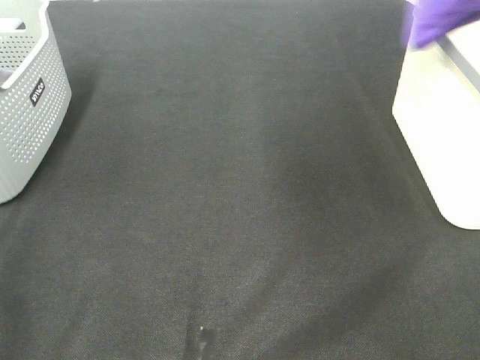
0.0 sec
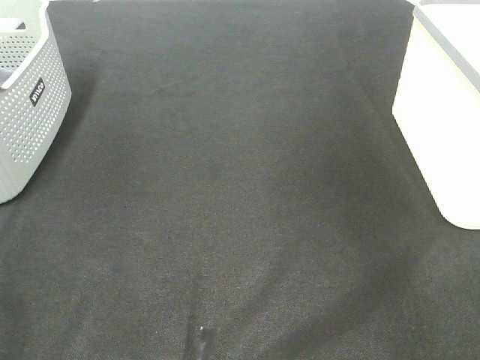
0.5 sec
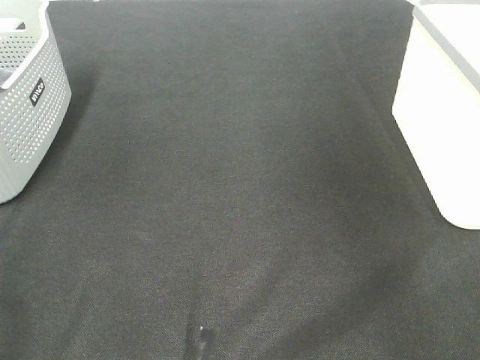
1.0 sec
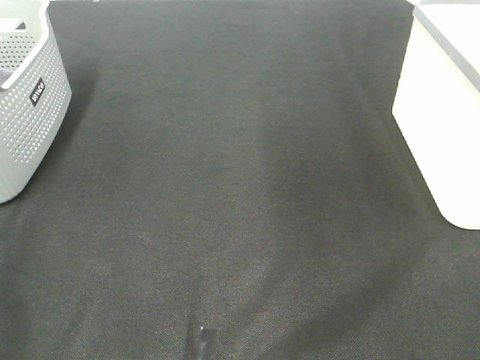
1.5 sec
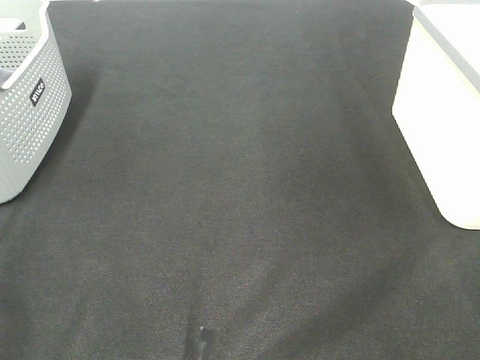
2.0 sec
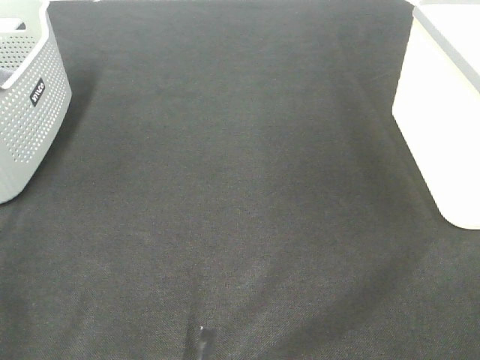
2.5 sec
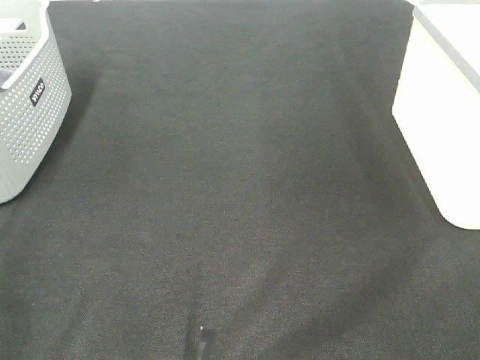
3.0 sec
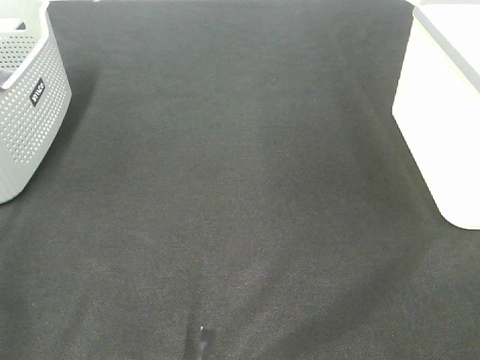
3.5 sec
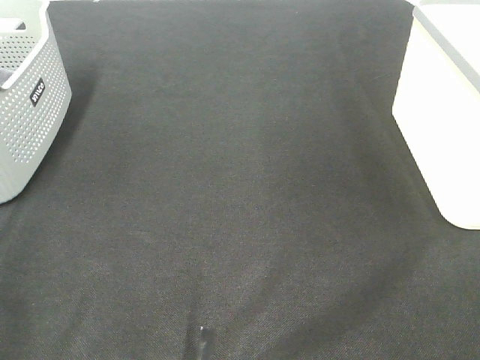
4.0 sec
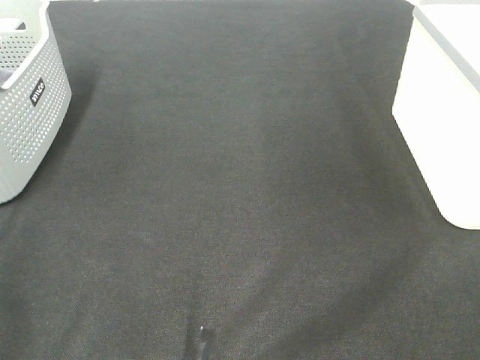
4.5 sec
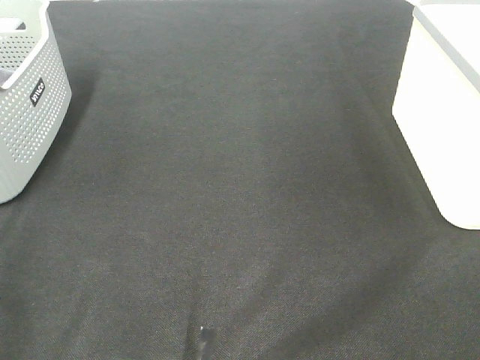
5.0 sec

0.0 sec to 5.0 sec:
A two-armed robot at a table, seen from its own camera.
0.0 sec to 2.5 sec: The right gripper shifts approximately 40 cm backward, and opens its fingers.
2.5 sec to 5.0 sec: Neither gripper changes place.

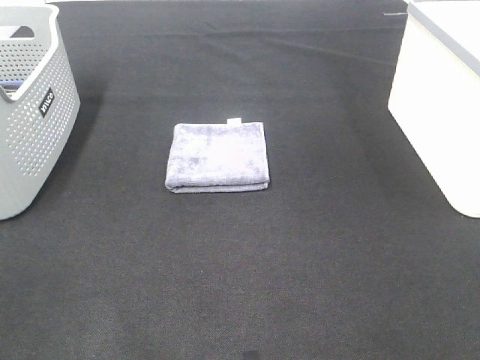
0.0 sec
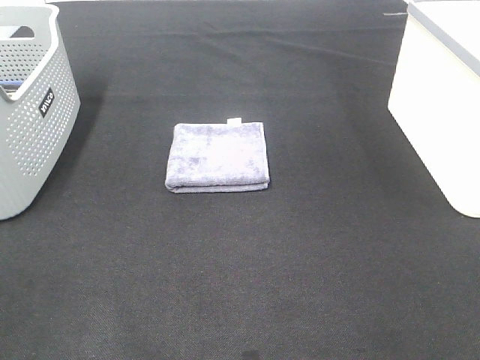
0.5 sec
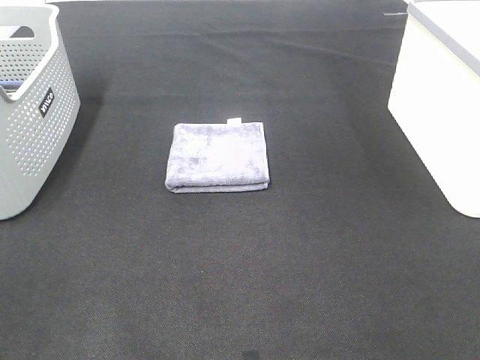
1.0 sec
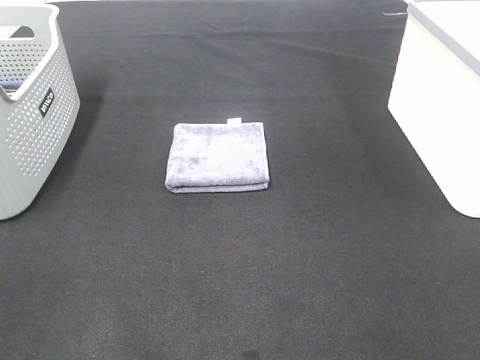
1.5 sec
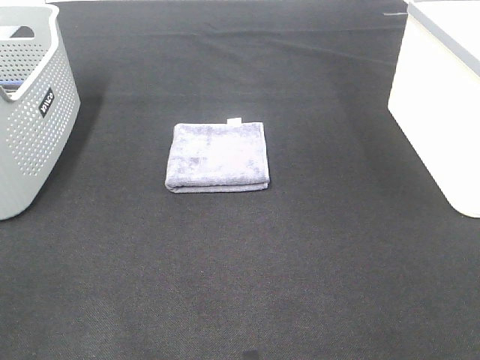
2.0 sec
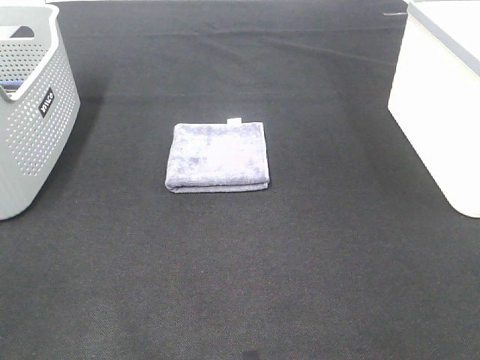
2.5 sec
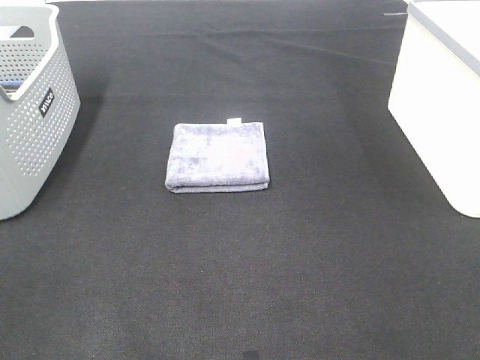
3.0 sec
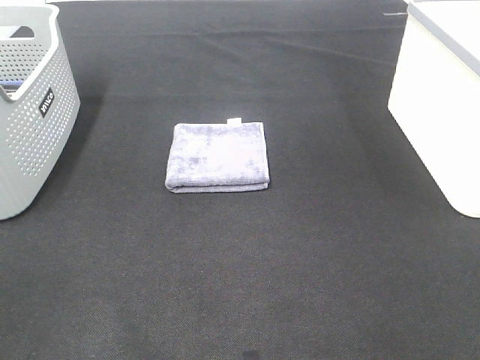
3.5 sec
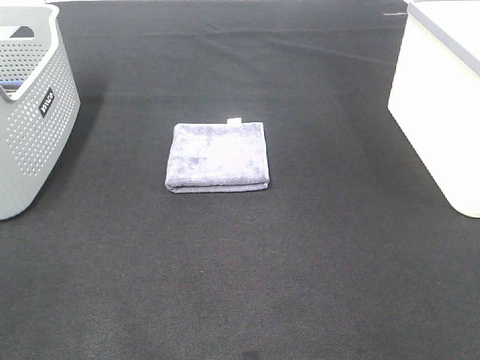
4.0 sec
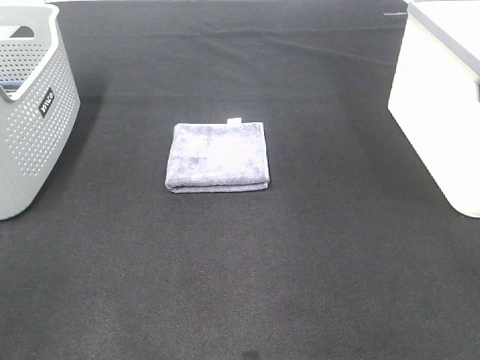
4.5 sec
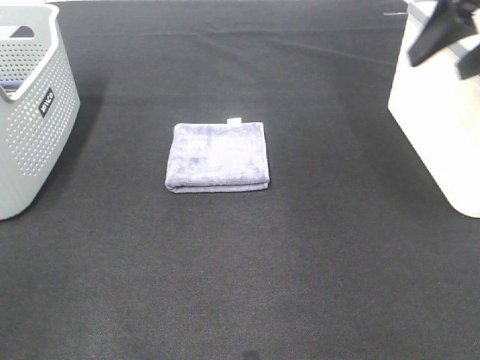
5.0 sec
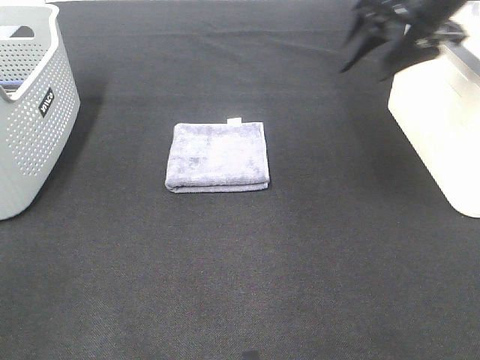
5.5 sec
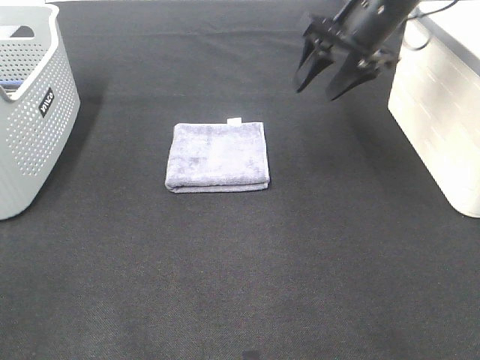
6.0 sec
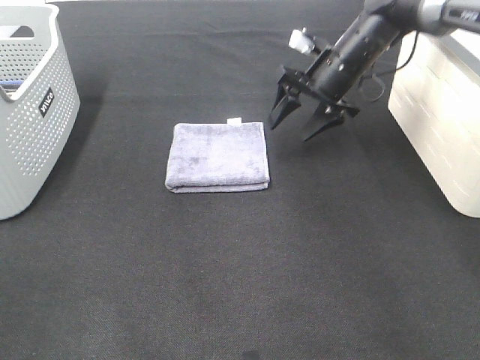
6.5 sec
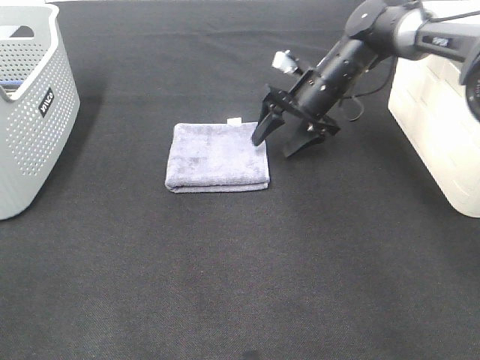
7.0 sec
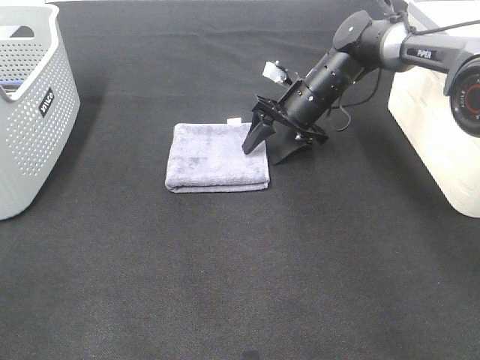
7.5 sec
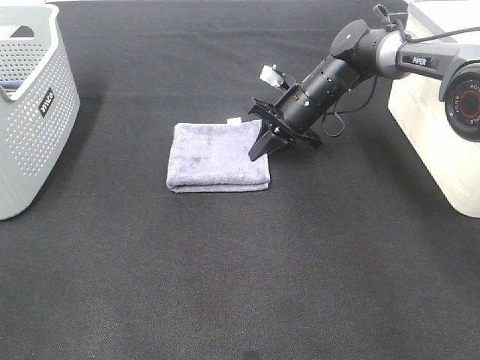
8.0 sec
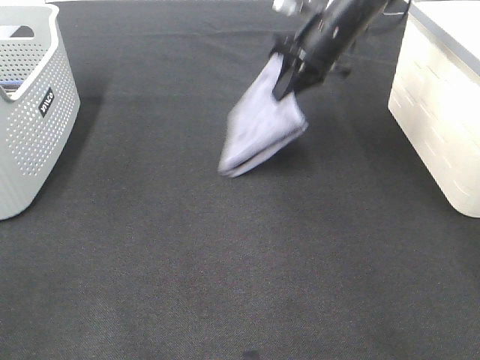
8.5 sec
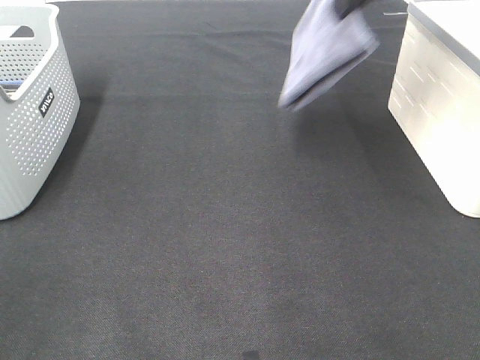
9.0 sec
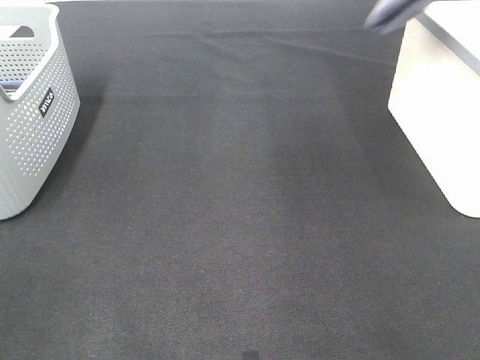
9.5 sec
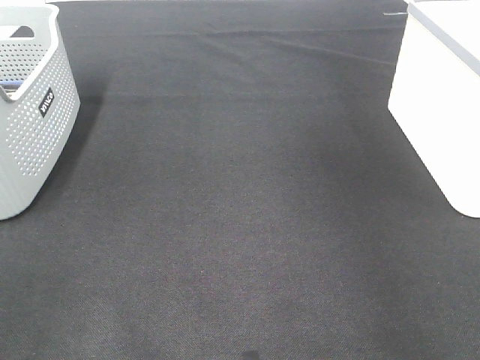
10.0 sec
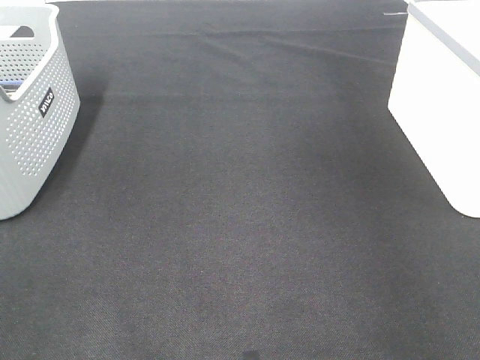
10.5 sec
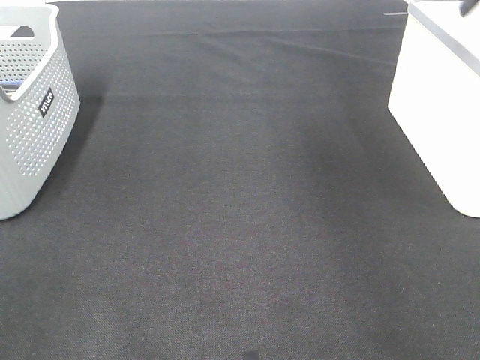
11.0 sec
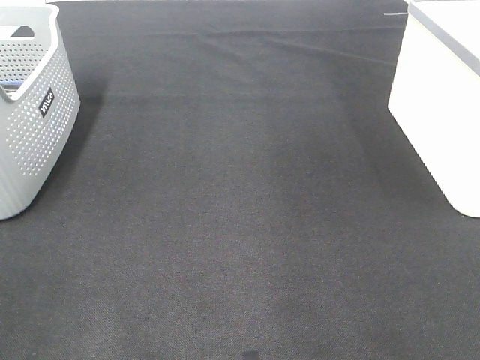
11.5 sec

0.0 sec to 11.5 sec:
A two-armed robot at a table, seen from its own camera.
Step, 0.0 sec to 8.0 sec: Right hand: grab the folded grey towel.
Step, 8.5 sec to 10.5 sec: Right hand: place the grey towel in right basket.
0.0 sec to 2.0 sec: Neither gripper changes place.
4.0 sec to 6.0 sec: The right gripper moves forward, approximately 40 cm.
6.0 sec to 7.5 sec: The right gripper travels downward by some 15 cm.
7.5 sec to 9.5 sec: The right gripper moves upward and to the right, roughly 40 cm, and closes its fingers.
9.5 sec to 11.5 sec: The right gripper goes roughly 5 cm backward, travels to the right and back again, roughly 10 cm each way, and opens.

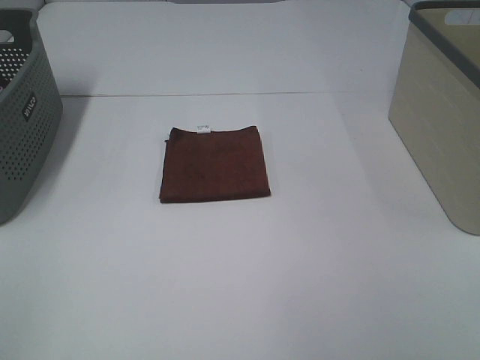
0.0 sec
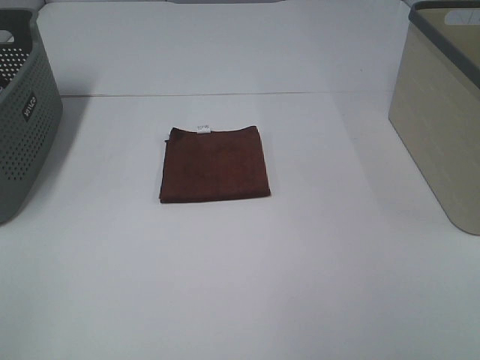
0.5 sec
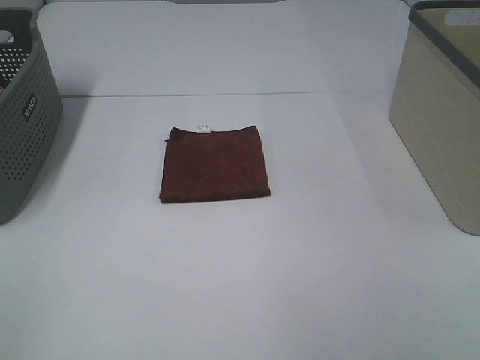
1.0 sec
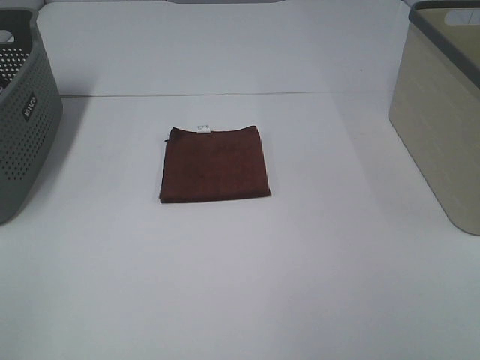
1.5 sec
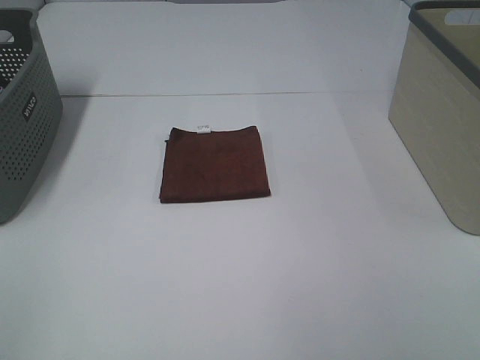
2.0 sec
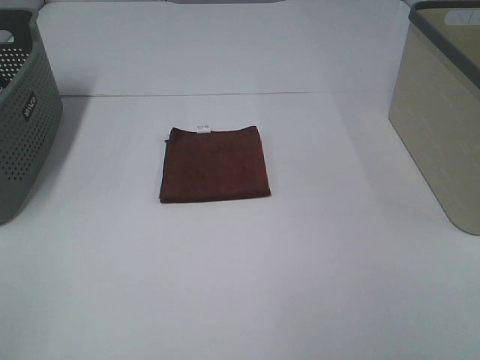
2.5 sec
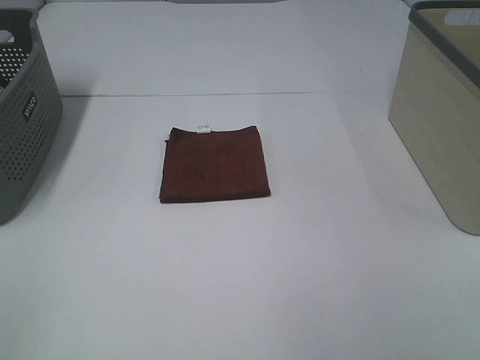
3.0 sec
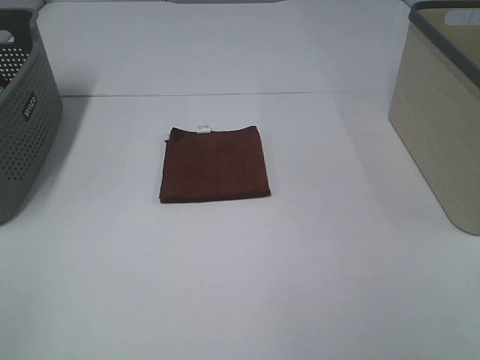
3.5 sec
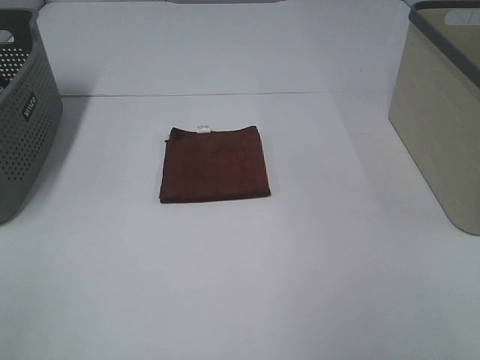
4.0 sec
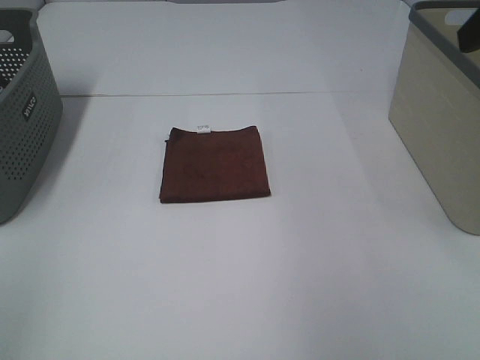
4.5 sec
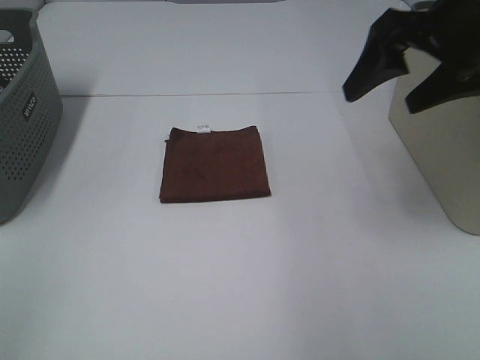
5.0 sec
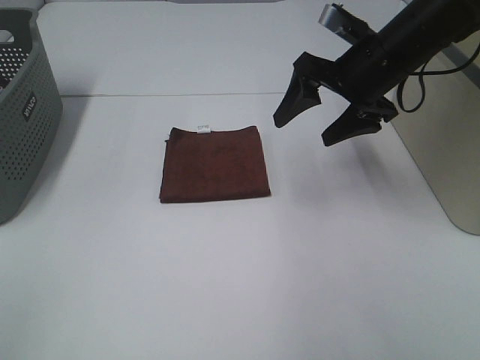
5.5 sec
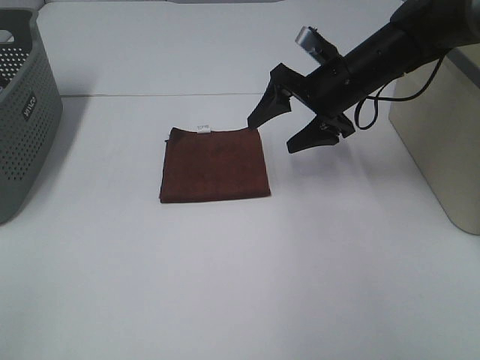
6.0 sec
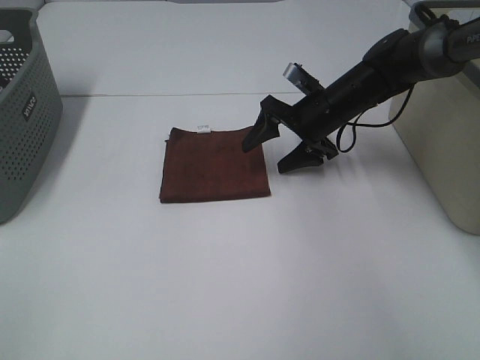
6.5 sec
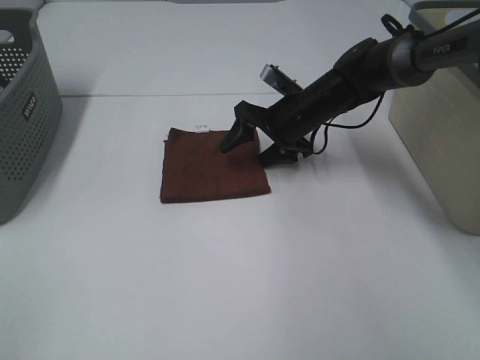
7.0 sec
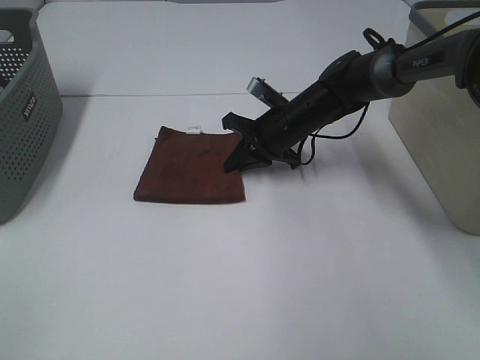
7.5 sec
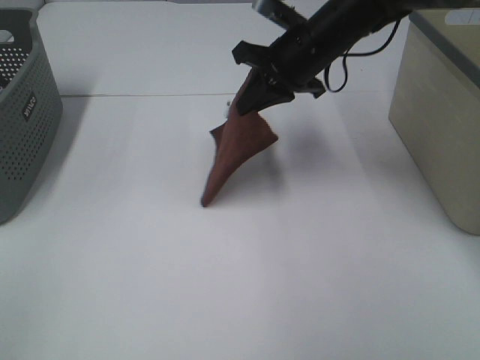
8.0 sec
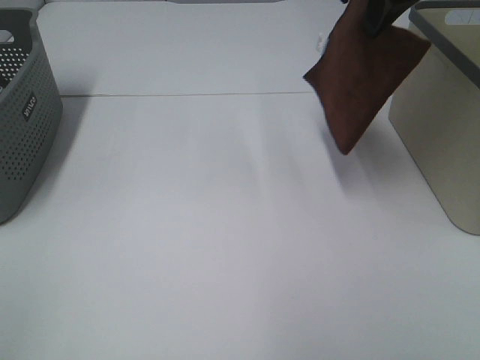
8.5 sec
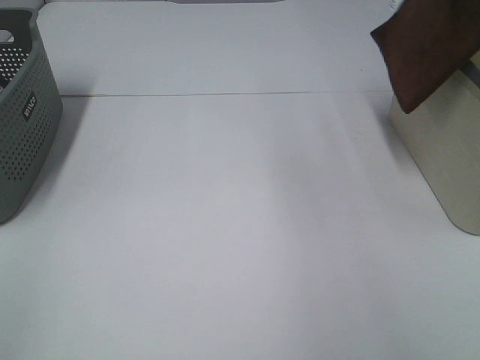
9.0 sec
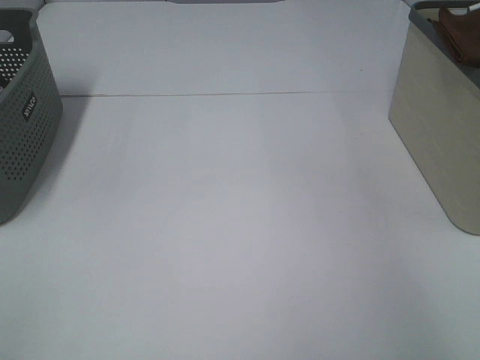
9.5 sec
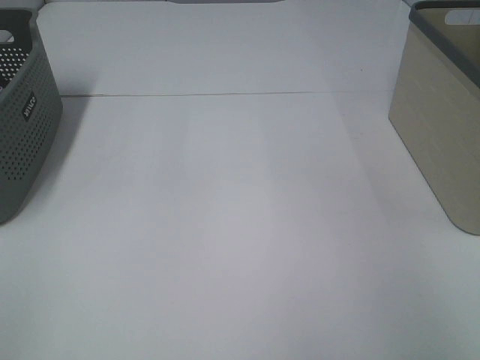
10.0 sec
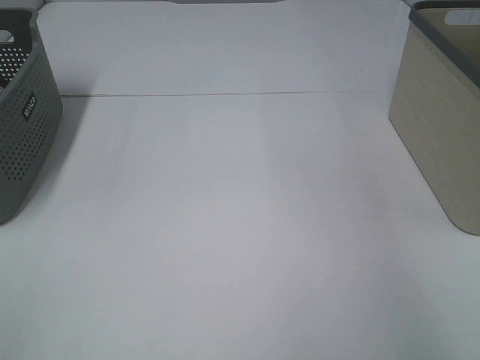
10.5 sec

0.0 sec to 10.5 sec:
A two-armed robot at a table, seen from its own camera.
Step, 0.0 sec to 7.5 sec: Right hand: grab the folded brown towel.
Step, 8.0 sec to 10.0 sec: Right hand: place the brown towel in right basket.
0.0 sec to 2.0 sec: Both grippers stay about where they are.
4.0 sec to 6.5 sec: The right gripper heads forward, downward and to the left, covering some 50 cm.
6.5 sec to 8.5 sec: The right gripper is displaced upward by roughly 25 cm, and closes its fingers.
8.5 sec to 10.5 sec: The right gripper moves to the right, roughly 20 cm, and opens.
